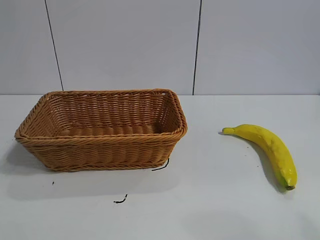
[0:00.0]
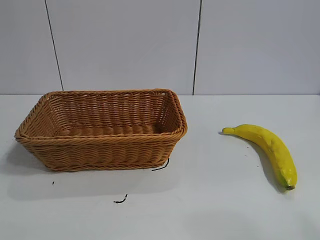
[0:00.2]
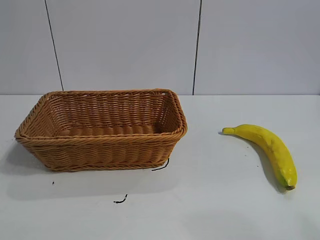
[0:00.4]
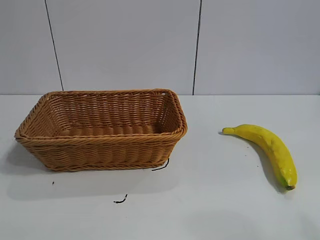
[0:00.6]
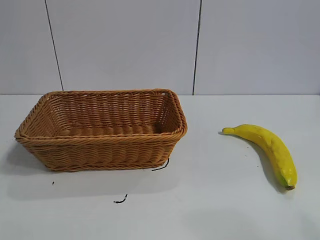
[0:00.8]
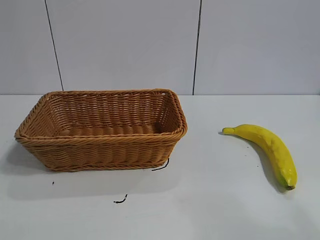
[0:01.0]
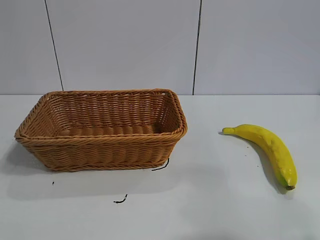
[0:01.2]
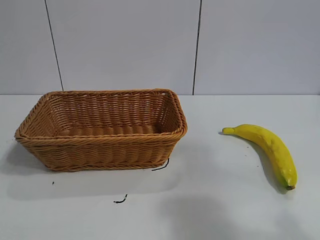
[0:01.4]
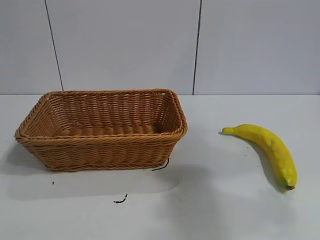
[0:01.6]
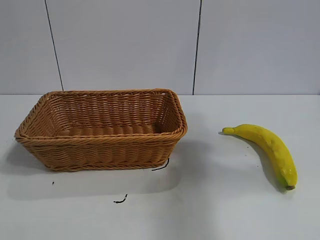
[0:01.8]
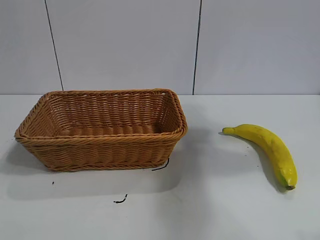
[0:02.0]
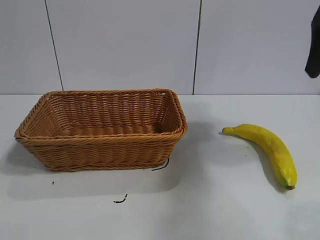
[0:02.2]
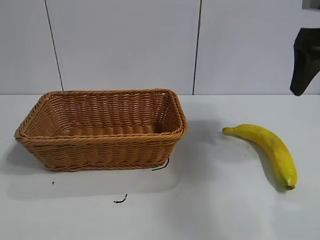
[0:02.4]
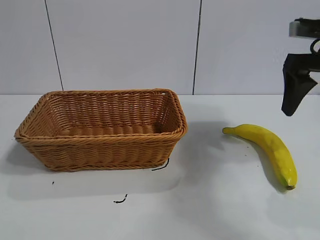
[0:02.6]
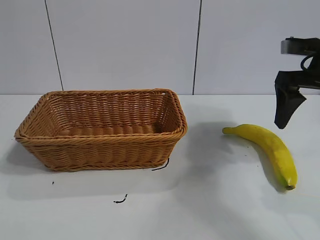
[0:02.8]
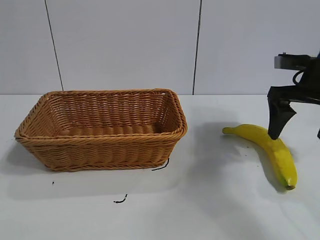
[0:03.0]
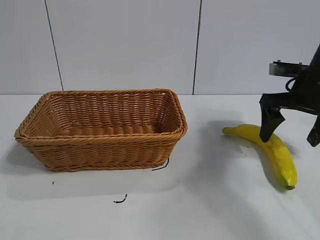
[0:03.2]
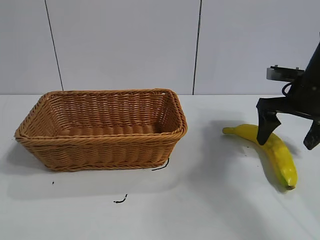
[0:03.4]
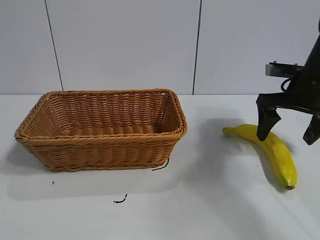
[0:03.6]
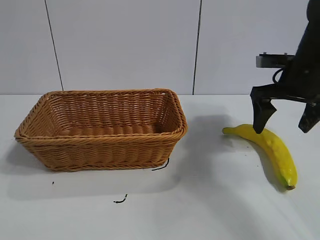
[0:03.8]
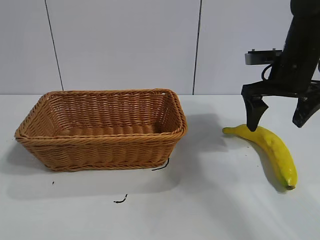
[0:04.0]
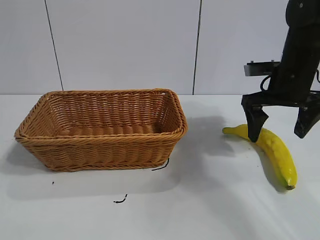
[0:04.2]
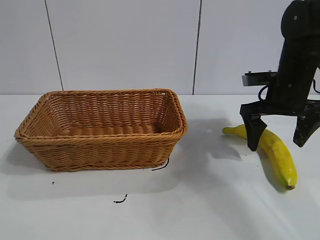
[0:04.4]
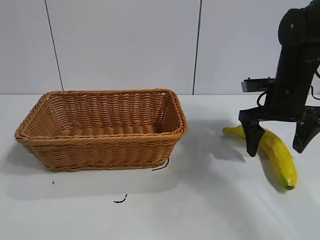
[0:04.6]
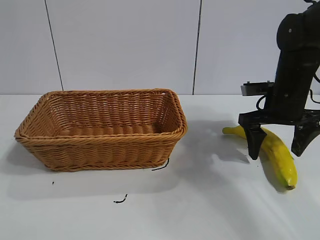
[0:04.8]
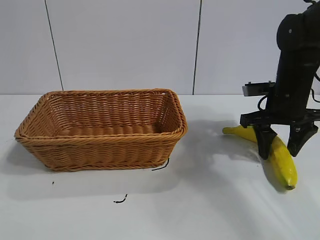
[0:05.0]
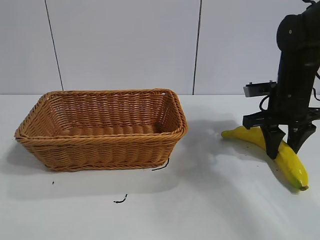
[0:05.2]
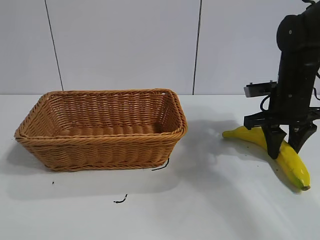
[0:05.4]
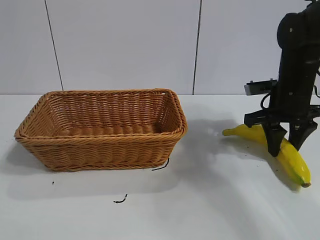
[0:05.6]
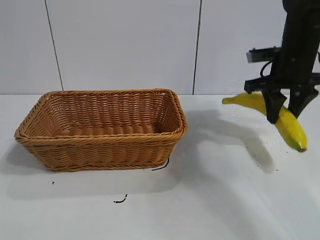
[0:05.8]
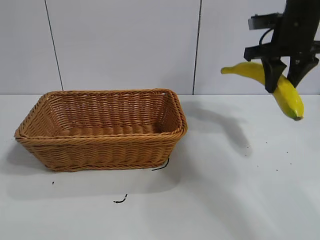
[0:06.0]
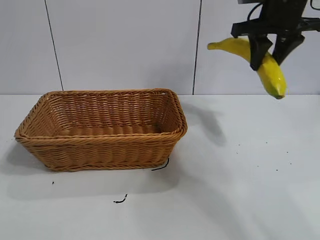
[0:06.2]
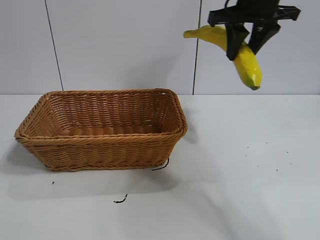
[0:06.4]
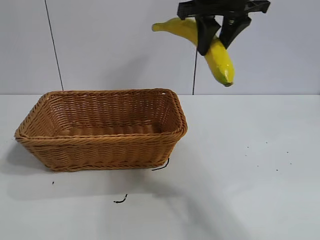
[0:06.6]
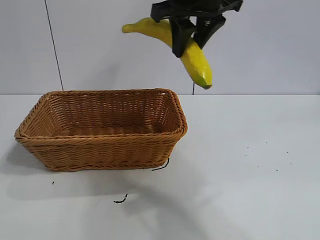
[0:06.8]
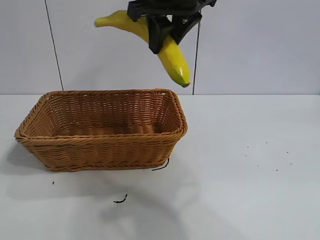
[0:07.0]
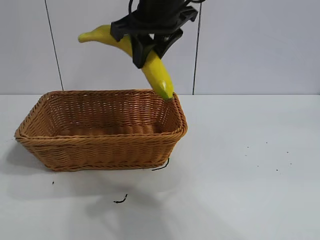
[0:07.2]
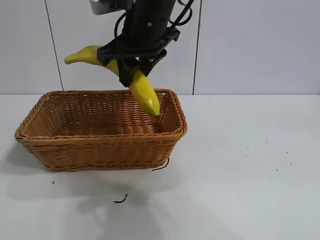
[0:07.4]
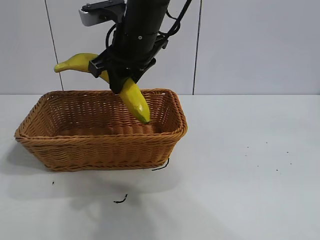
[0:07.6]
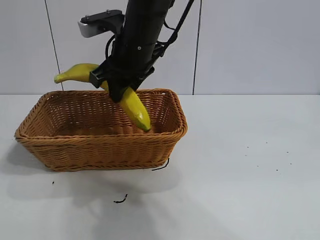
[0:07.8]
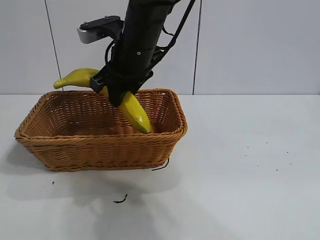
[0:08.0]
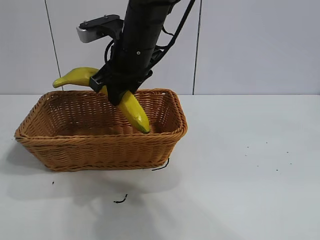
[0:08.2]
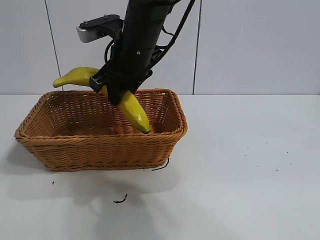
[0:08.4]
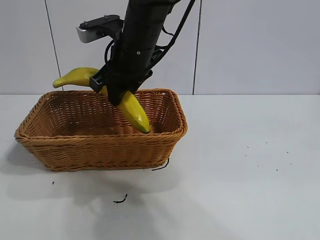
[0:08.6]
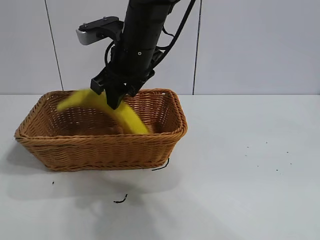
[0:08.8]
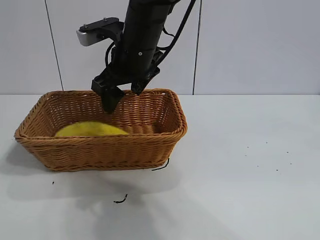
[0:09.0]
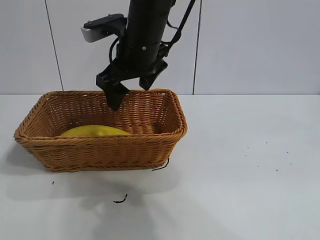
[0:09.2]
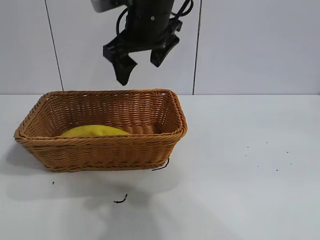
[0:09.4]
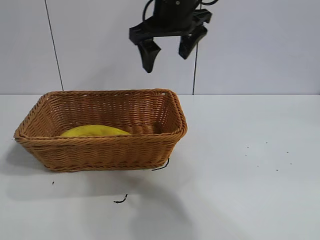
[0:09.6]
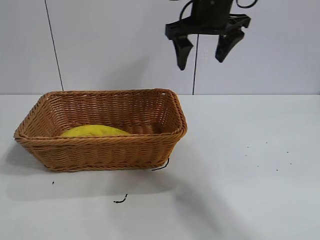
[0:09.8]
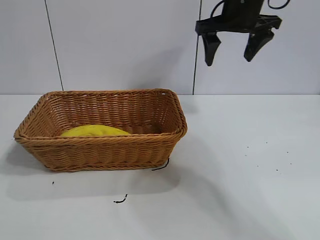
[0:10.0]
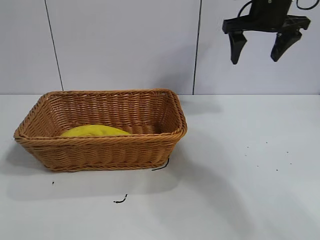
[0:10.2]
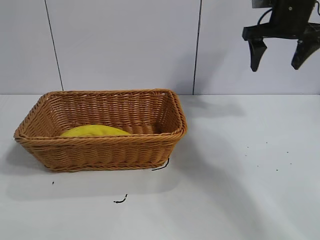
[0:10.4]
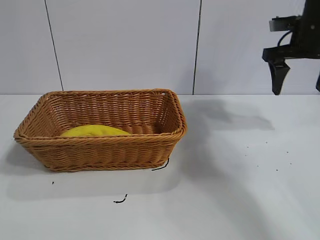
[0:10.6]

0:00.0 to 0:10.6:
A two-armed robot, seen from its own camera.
Task of the whole recording: pick up the banana and put it into the basket.
Step, 0:02.2 to 0:05.2: Grasp the banana with right gripper.
Step, 0:05.4 to 0:09.0: Place the banana in the basket with right gripper.

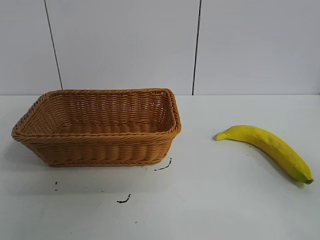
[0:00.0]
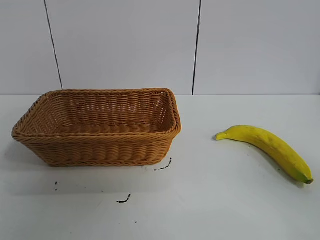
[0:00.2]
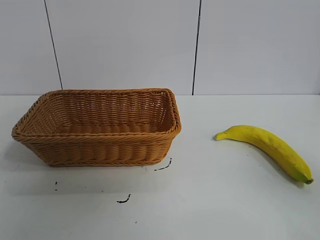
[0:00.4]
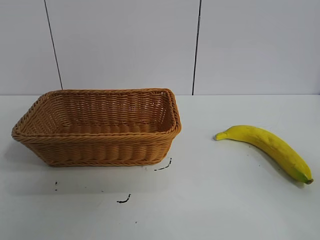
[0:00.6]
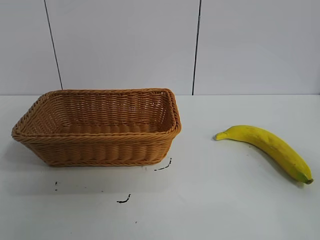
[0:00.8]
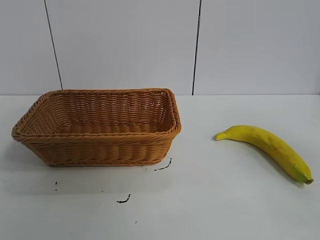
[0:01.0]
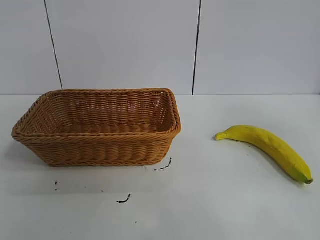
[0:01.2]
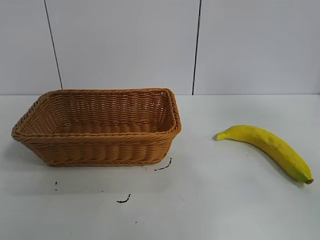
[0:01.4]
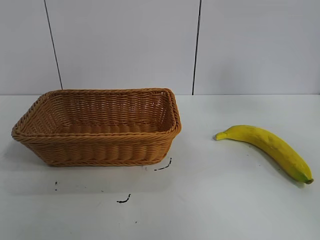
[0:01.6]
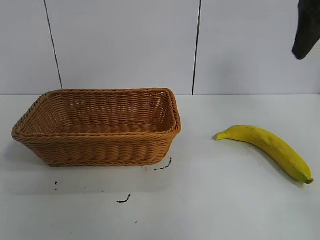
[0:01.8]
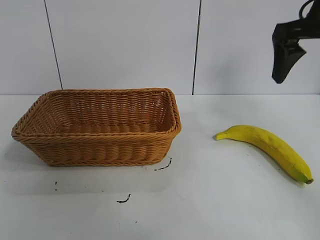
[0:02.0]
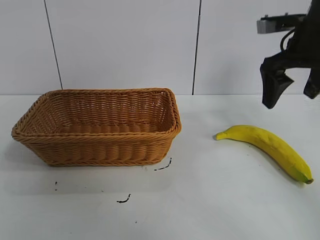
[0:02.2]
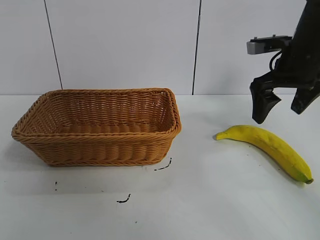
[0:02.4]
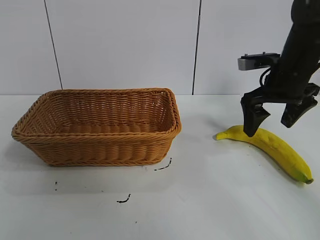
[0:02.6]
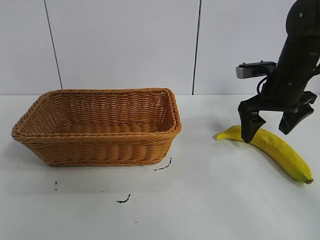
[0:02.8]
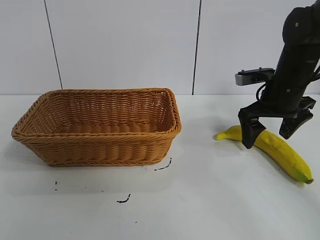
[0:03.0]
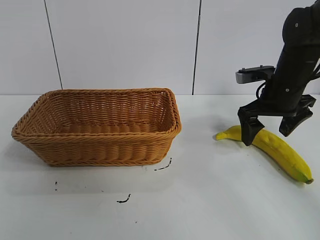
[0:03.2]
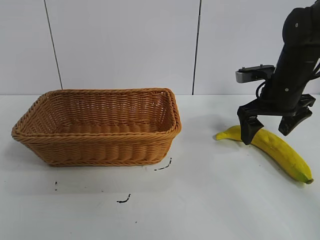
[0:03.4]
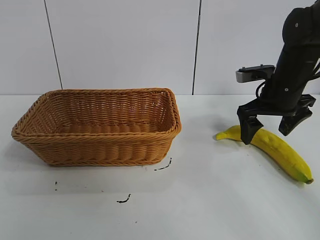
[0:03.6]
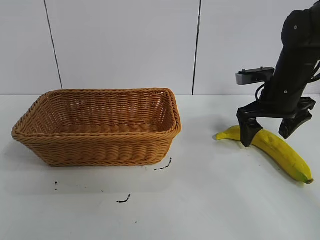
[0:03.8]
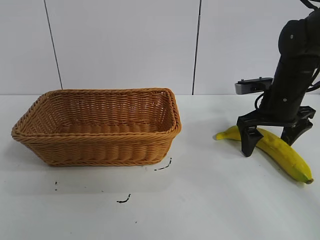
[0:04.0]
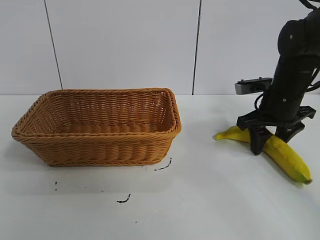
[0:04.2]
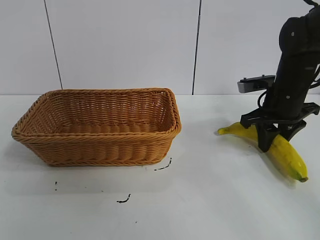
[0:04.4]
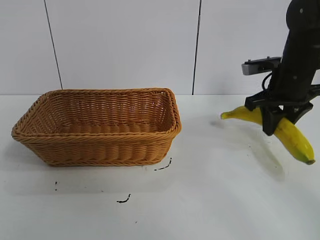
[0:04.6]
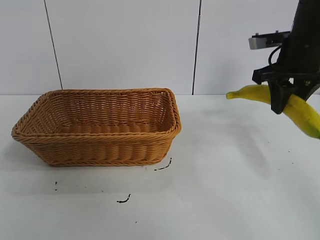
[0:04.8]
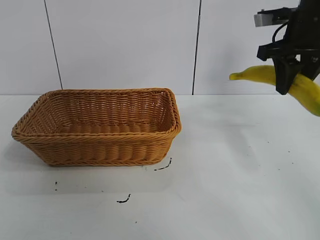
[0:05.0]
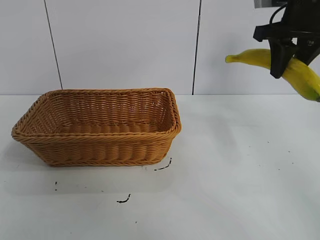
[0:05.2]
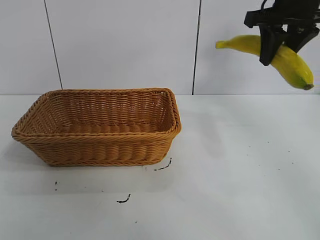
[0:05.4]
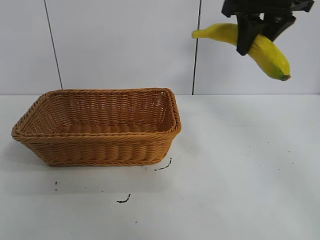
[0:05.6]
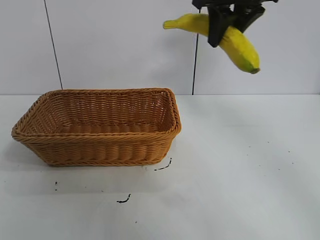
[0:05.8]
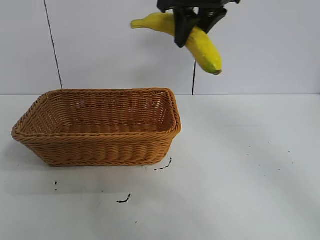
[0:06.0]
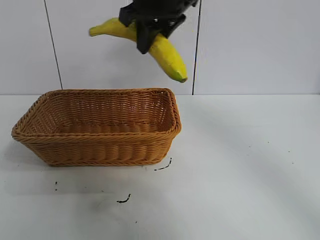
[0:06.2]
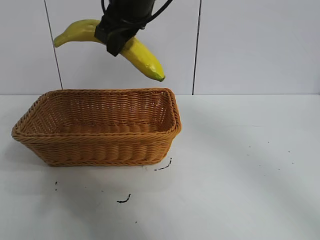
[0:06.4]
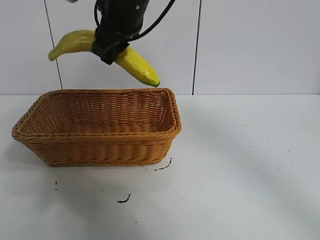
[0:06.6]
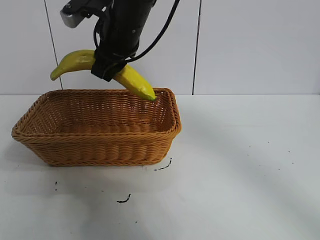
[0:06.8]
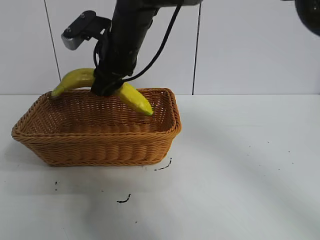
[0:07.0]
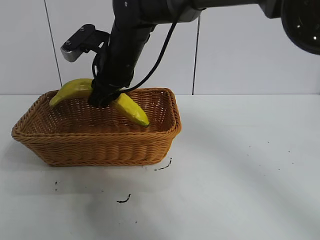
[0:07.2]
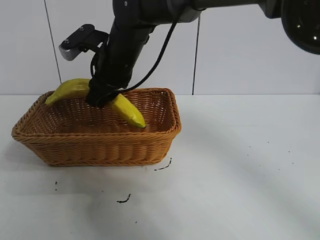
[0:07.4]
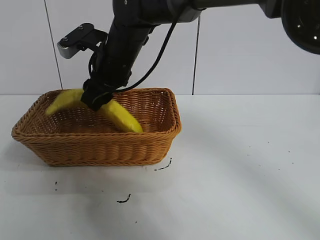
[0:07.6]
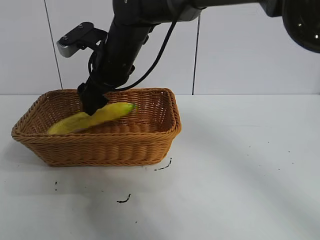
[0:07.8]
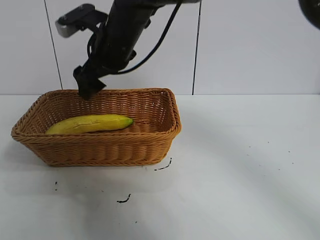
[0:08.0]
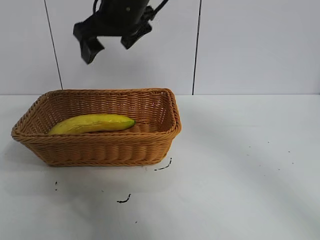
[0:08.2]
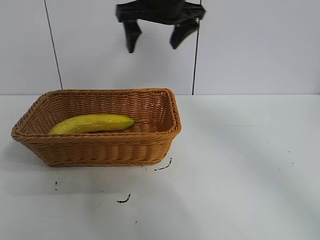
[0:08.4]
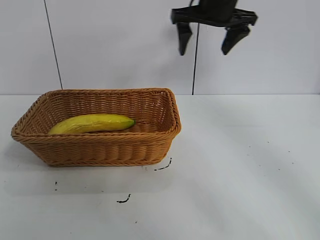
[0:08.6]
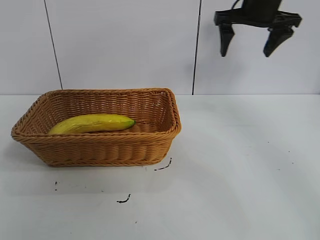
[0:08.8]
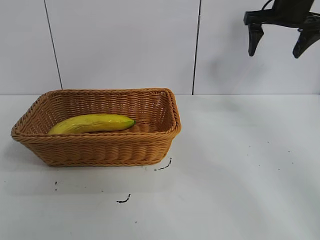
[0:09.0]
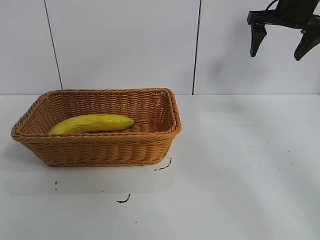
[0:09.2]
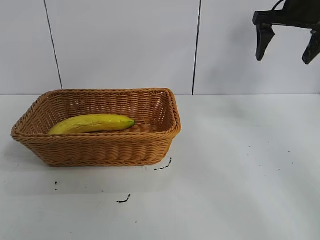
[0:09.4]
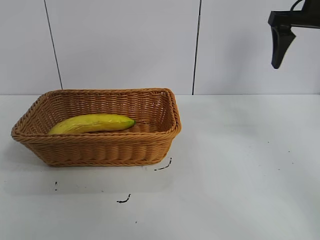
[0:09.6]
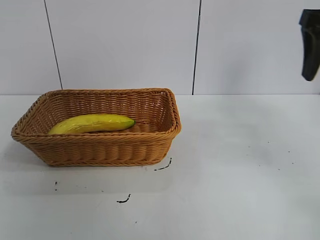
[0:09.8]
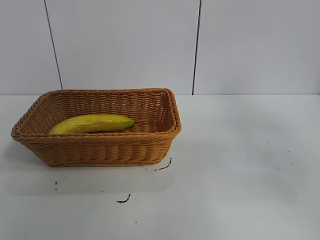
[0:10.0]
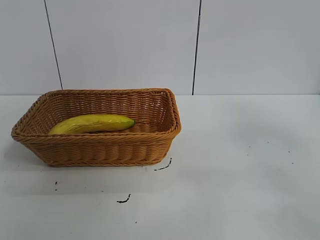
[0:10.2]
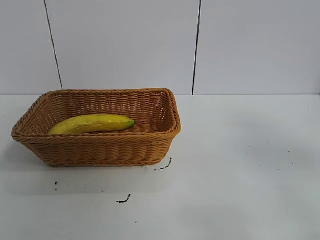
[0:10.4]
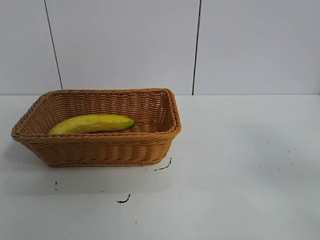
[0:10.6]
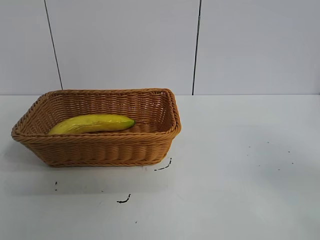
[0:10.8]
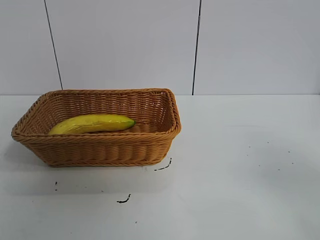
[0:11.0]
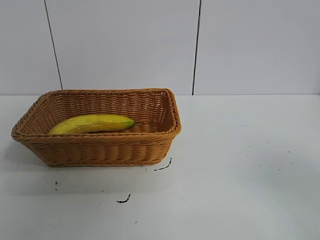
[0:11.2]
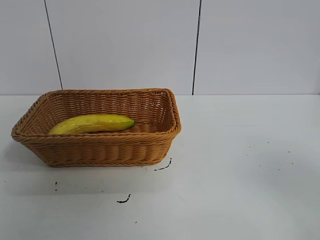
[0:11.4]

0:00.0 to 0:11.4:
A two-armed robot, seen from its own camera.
Task of the whole recording: pick up the banana and put it into the basket.
Step, 0:00.8 to 0:04.2: Grasp the banana with right gripper.
Step, 0:04.4 to 0:07.6: Place the banana in the basket with right gripper.
